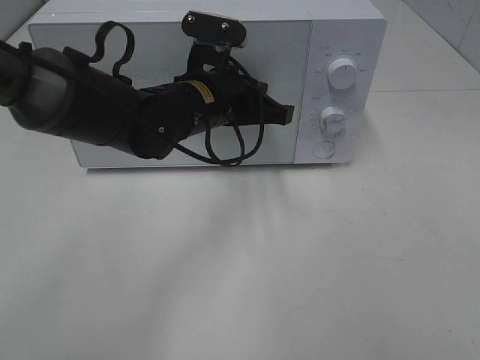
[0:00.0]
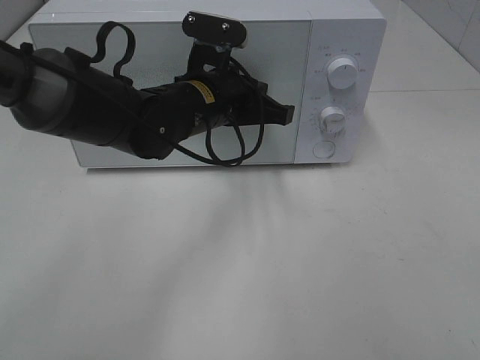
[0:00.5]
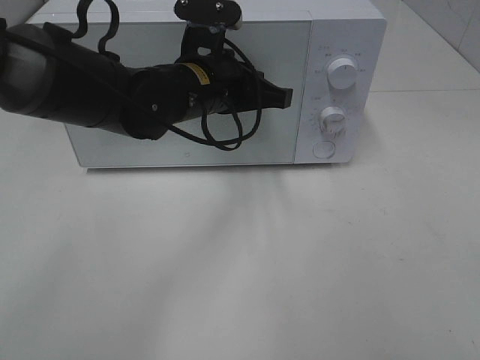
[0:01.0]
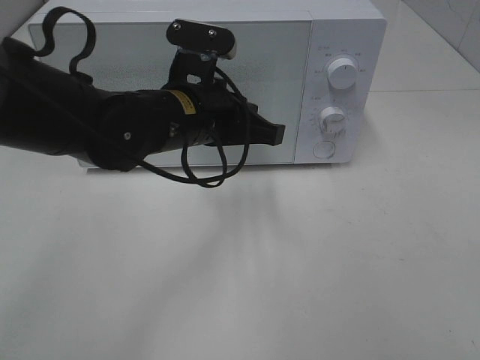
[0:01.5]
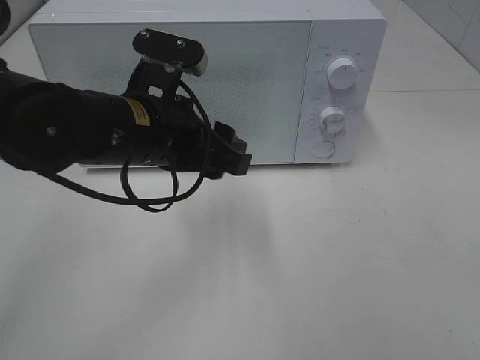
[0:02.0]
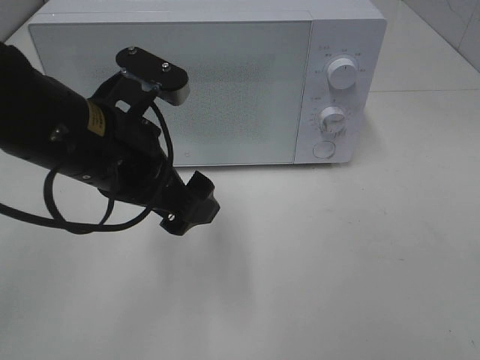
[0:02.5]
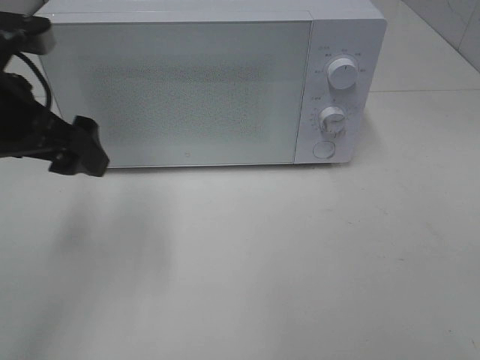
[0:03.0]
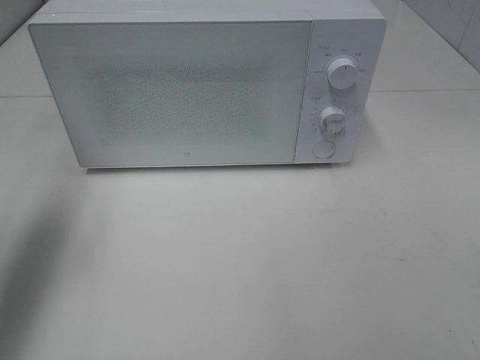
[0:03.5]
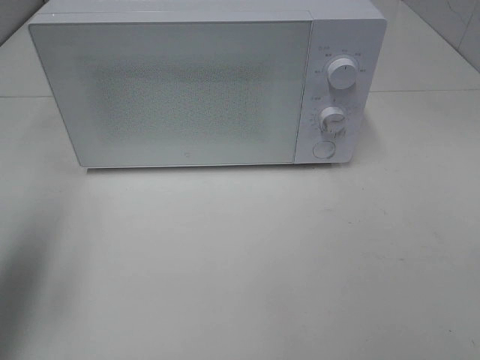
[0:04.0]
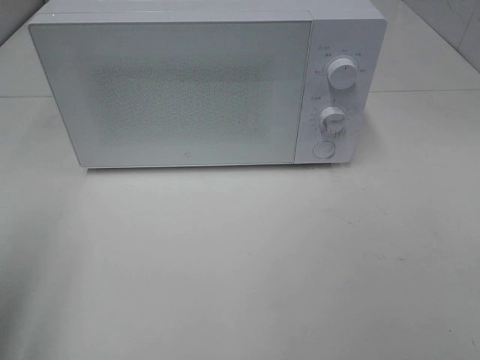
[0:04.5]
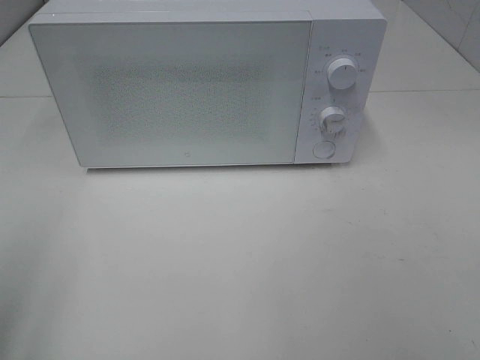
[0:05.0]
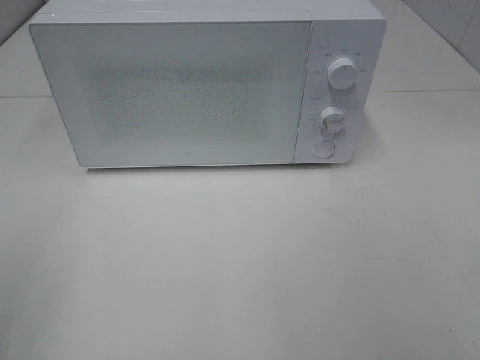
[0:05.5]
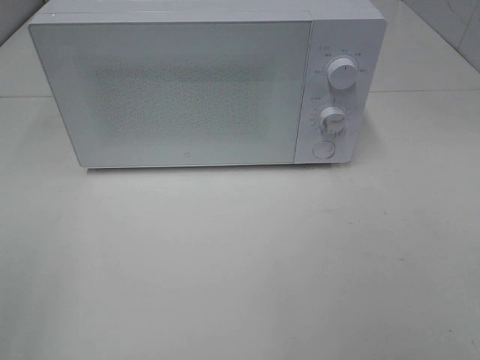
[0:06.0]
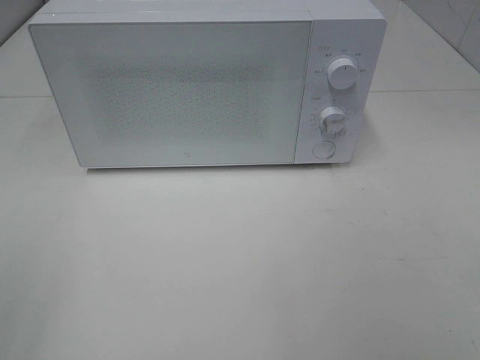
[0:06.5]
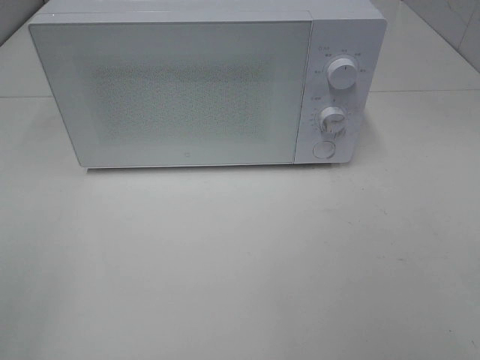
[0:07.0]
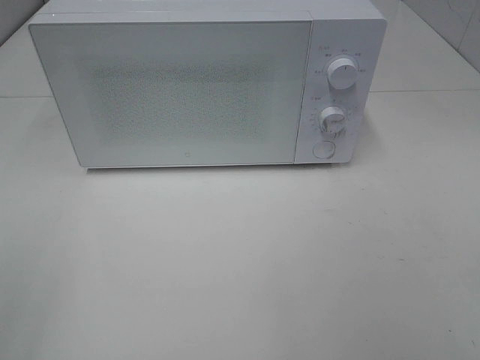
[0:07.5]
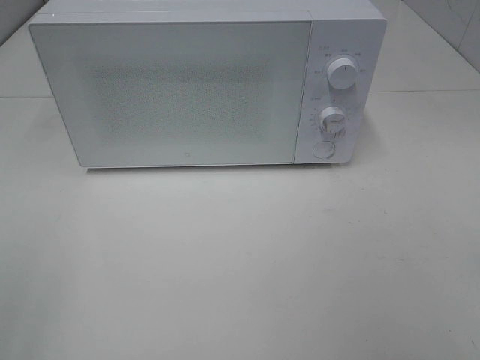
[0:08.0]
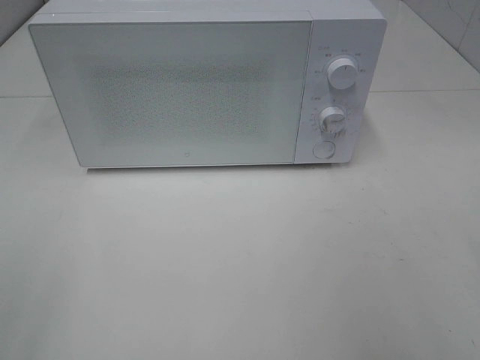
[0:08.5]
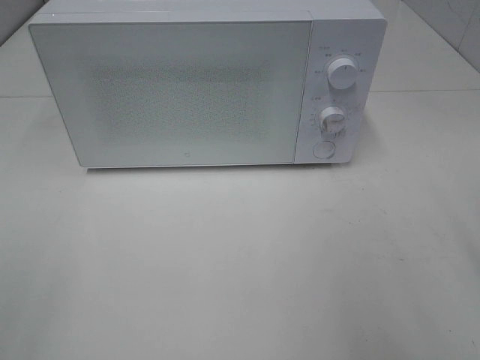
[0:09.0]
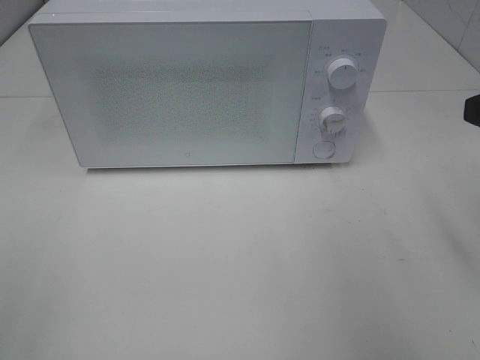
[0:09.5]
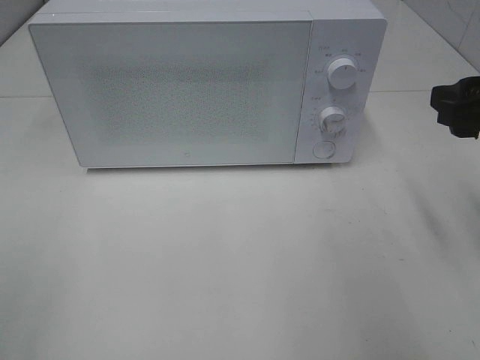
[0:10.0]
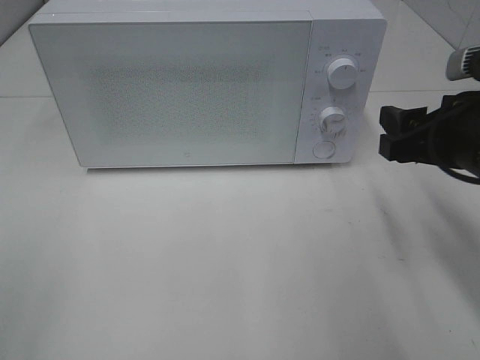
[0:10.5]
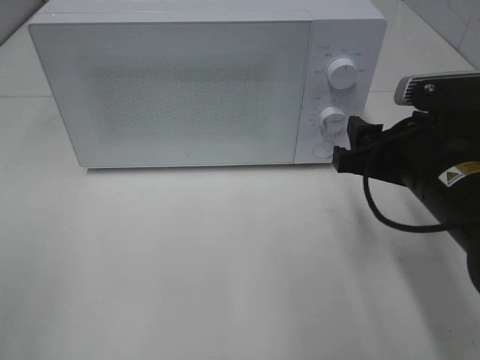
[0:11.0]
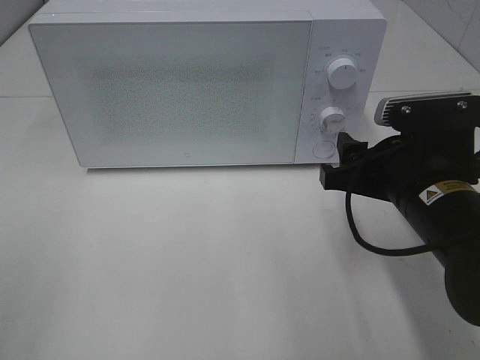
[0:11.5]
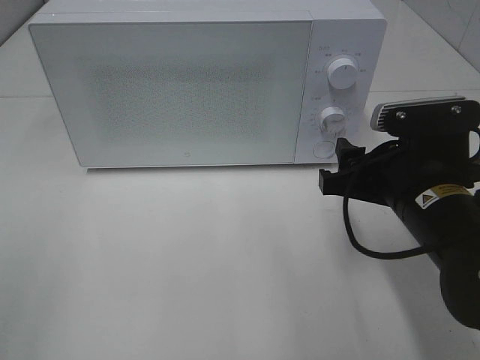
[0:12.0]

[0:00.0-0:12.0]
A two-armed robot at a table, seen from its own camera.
Task of the whole recording: Heat Sandwich.
0:00.0 to 0:02.0: The left gripper shifts some 10 cm backward, and opens up.
0:02.0 to 0:04.0: The left gripper is displaced to the left by some 25 cm, and opens its fingers.
0:04.0 to 0:06.0: The left gripper moves backward, about 20 cm.
0:08.0 to 0:10.0: The right gripper is displaced forward by some 20 cm.
0:10.0 to 0:12.0: The right gripper heads to the left and downward, covering roughly 15 cm.

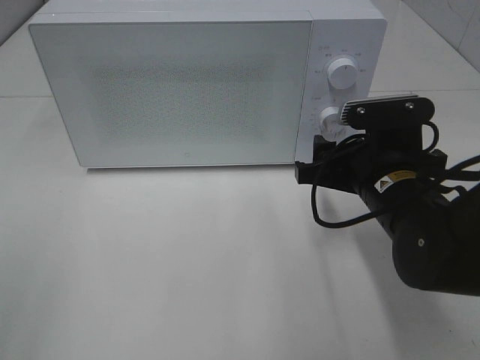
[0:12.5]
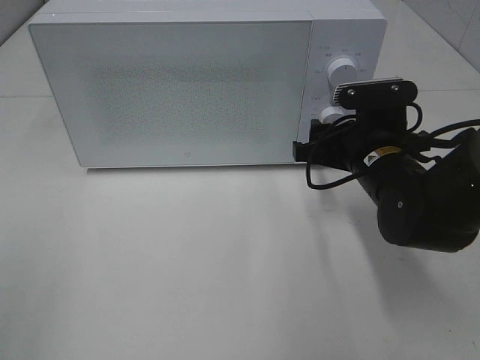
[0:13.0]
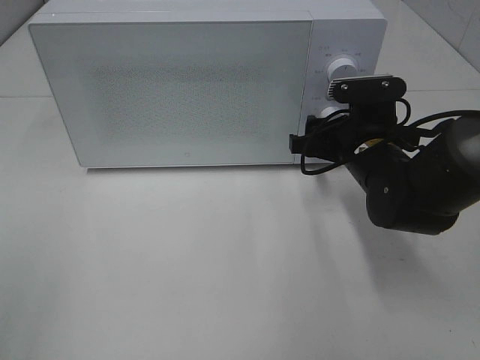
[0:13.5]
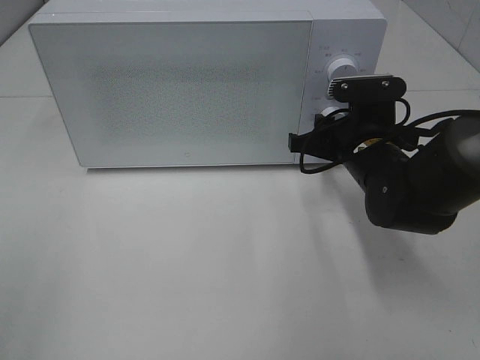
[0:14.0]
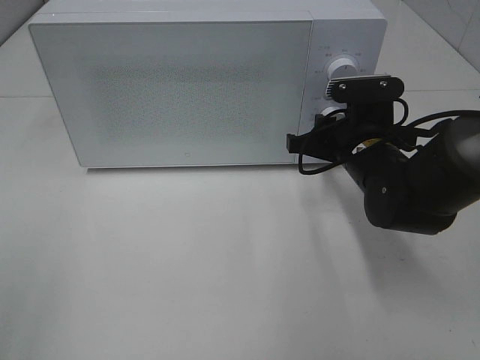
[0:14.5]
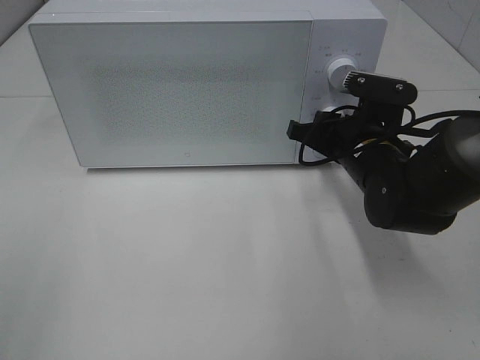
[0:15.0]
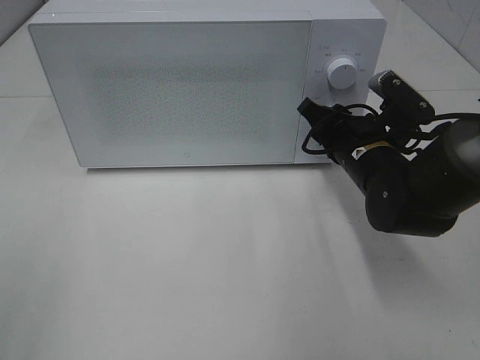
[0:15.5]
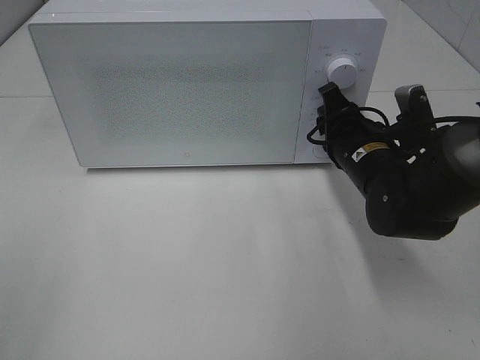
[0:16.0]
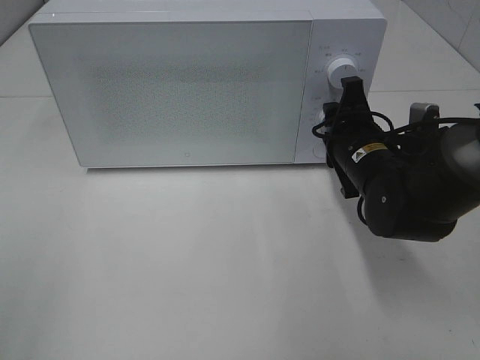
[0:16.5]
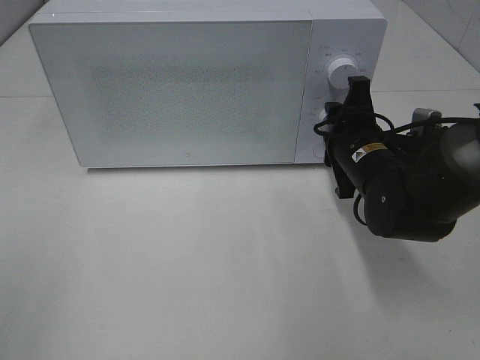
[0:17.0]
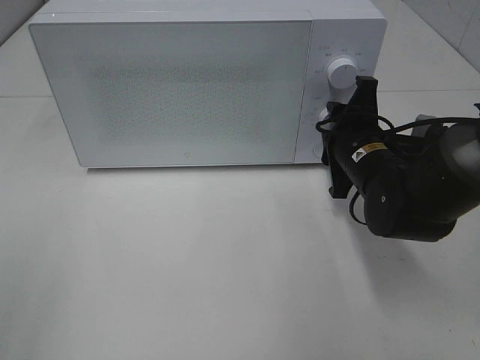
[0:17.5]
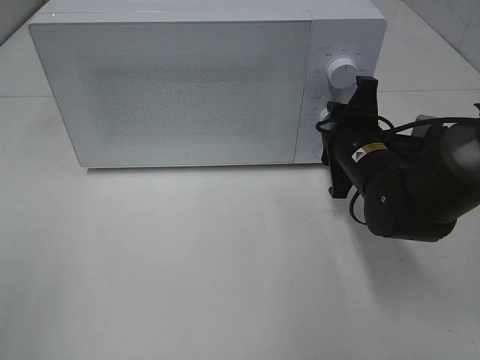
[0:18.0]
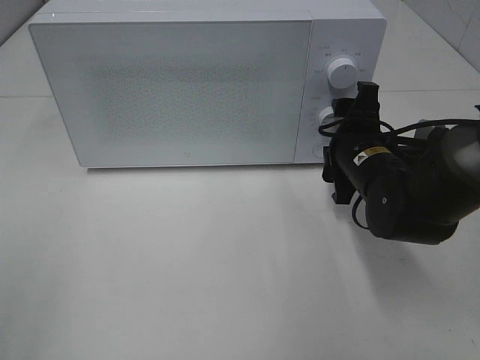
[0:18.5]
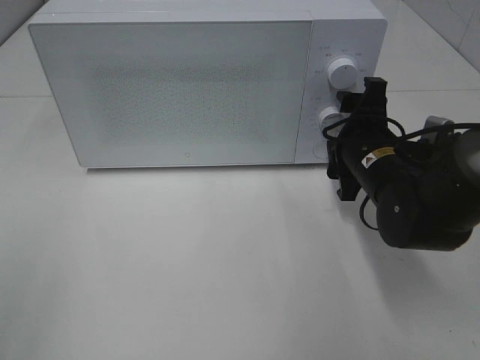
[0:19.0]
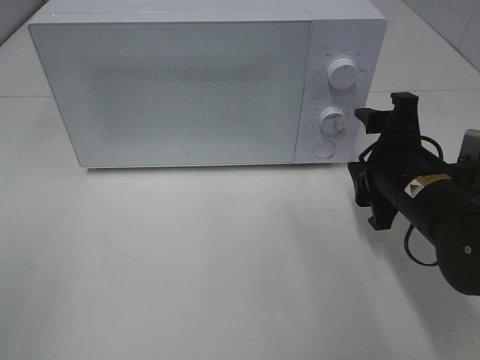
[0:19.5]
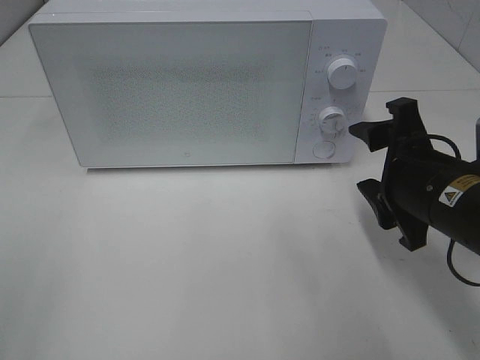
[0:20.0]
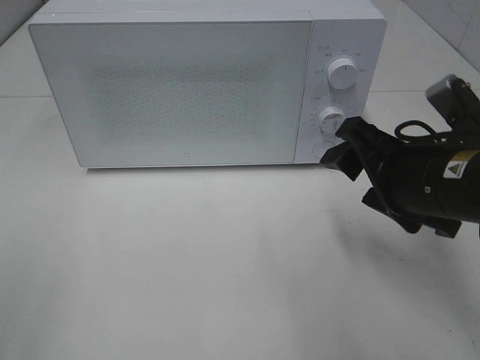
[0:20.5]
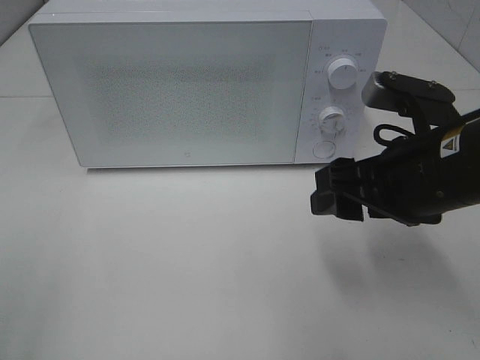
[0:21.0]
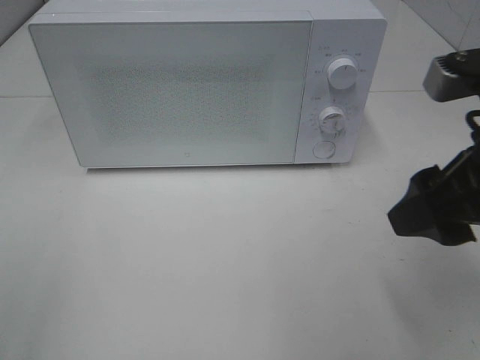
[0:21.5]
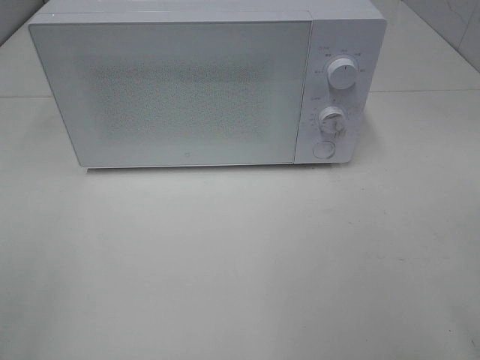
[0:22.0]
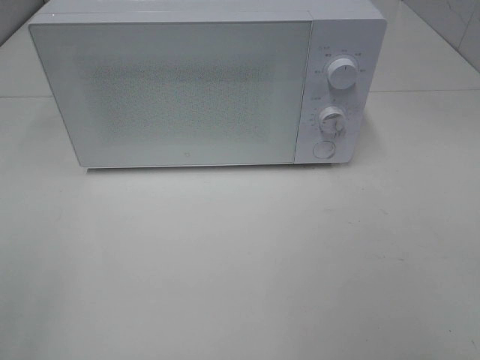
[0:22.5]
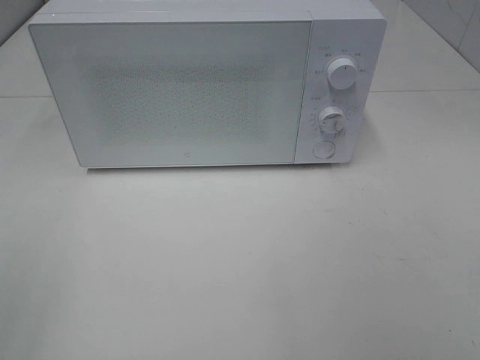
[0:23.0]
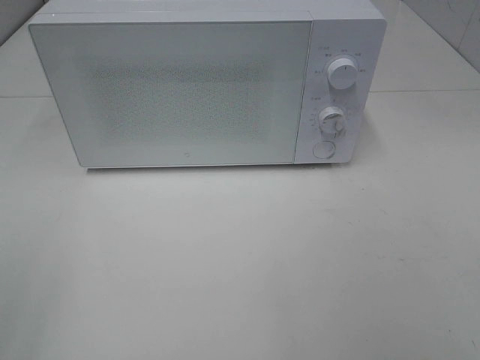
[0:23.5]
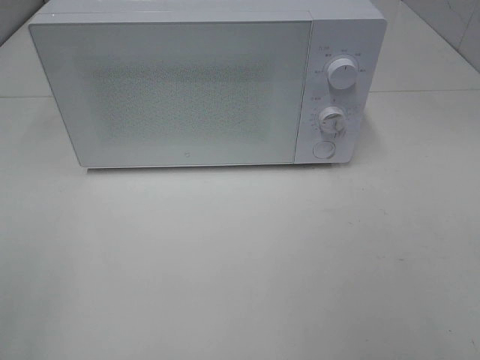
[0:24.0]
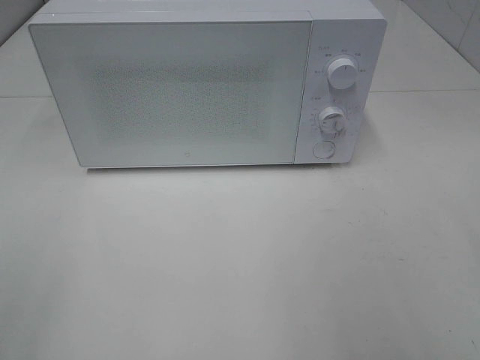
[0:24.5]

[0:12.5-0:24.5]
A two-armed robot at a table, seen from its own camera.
Task of the whole recording: Heat Sandwich.
Step, 0:12.5 to 0:19.0: Right hand: twist timer button.
0:12.5 to 0:14.5: The right gripper heads forward, covering about 5 cm, and closes up.
0:16.5 to 0:18.5: The right gripper opens its fingers.
0:18.5 to 0:20.5: The right gripper travels backward and upward by about 15 cm.
0:20.5 to 0:22.5: The right gripper shifts about 25 cm backward, upward and to the right.

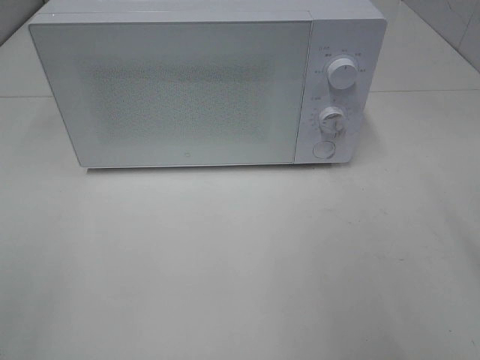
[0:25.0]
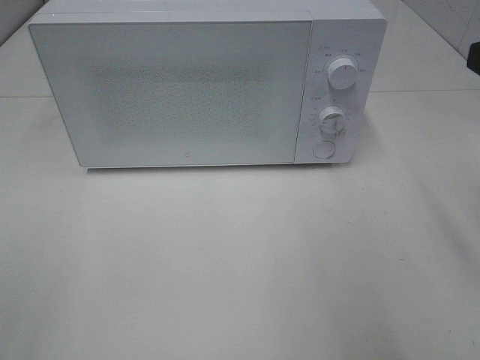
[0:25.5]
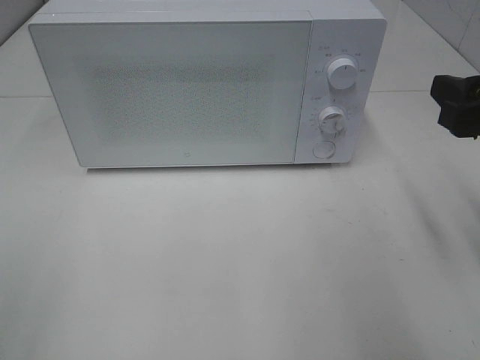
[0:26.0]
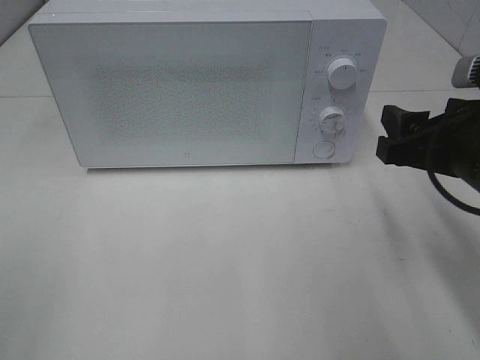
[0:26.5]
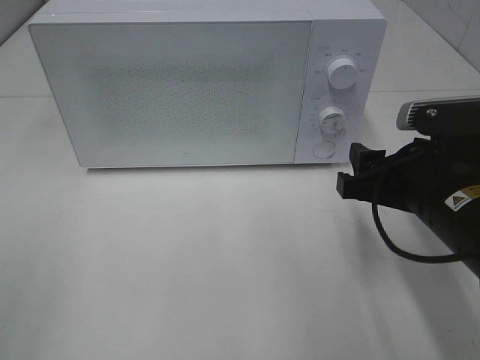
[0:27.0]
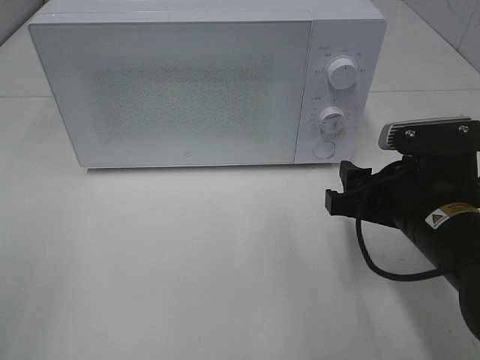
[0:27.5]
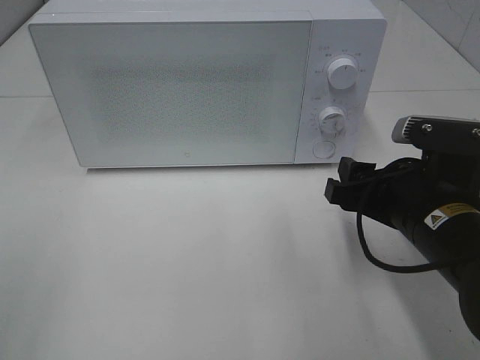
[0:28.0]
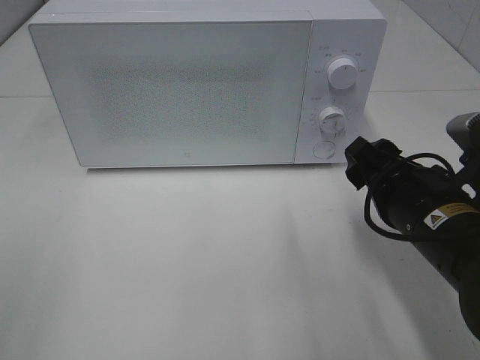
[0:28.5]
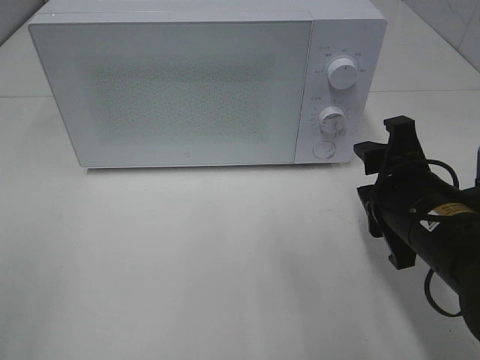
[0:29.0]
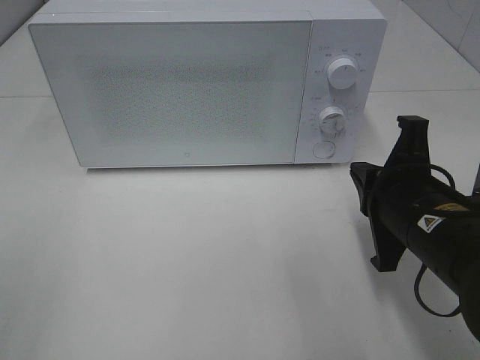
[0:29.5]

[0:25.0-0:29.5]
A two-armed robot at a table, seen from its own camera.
Task of the whole recording: Heat Sandwich.
0:25.0 to 0:27.0: The right gripper moves downward, to the left and forward, some 20 cm.
0:27.0 to 0:29.5: The right gripper closes.
